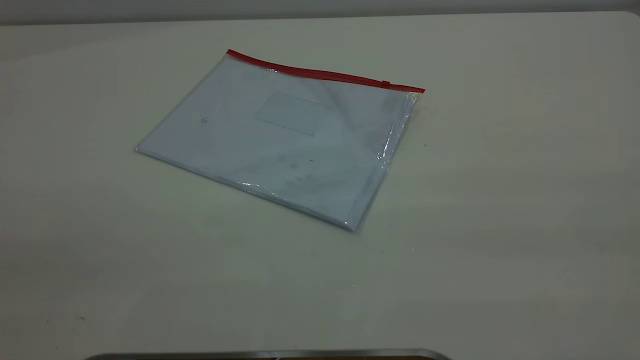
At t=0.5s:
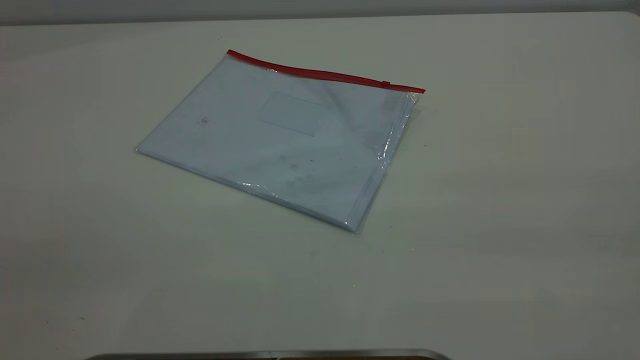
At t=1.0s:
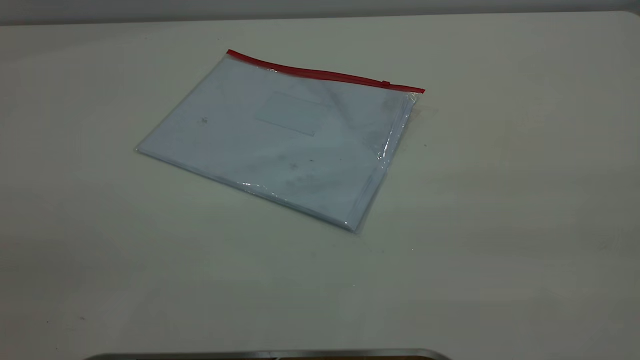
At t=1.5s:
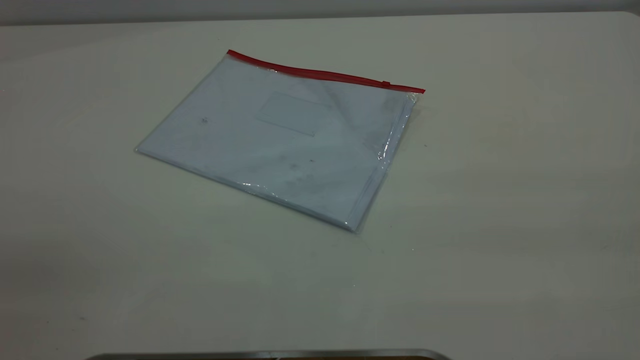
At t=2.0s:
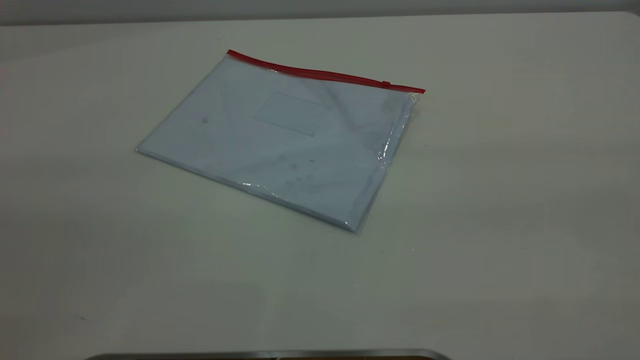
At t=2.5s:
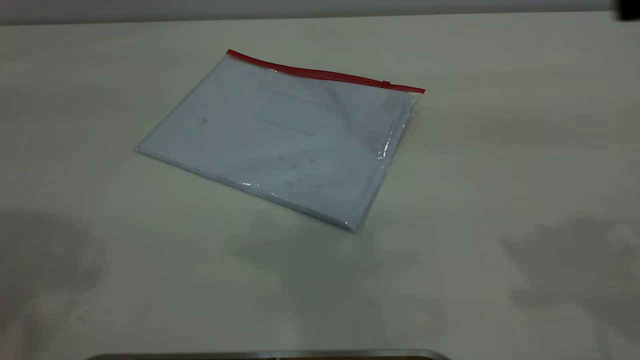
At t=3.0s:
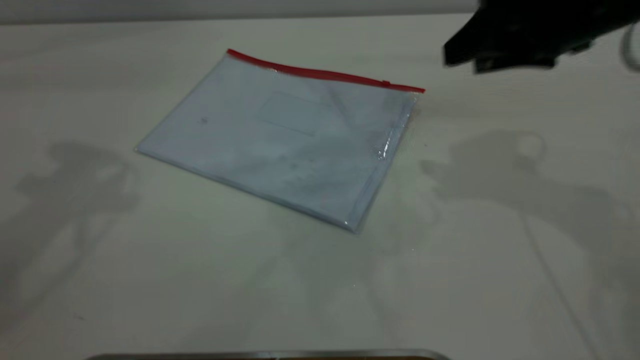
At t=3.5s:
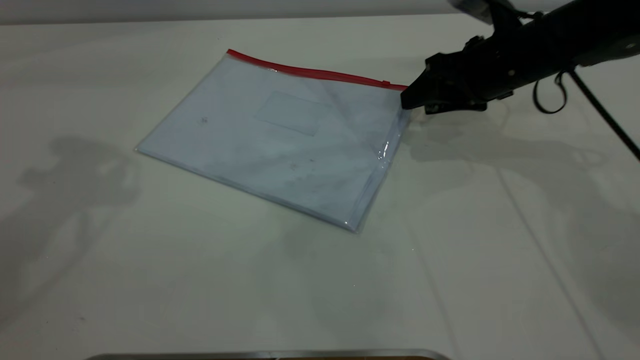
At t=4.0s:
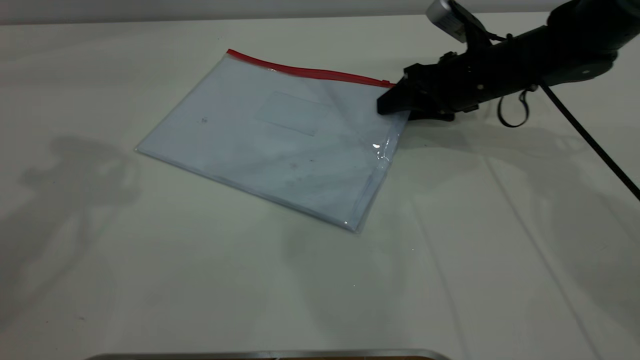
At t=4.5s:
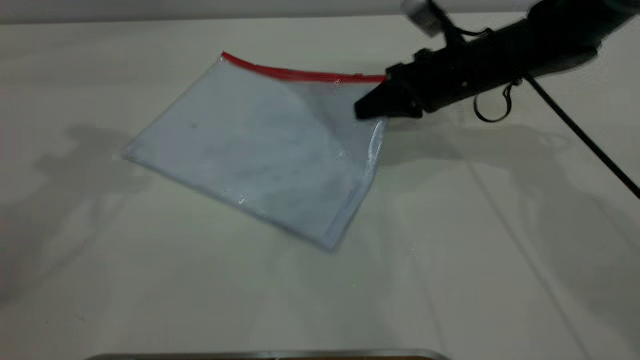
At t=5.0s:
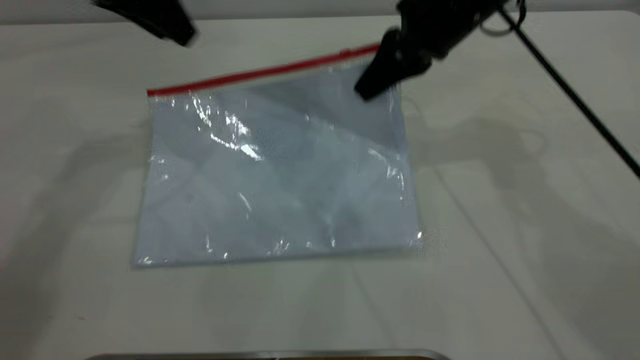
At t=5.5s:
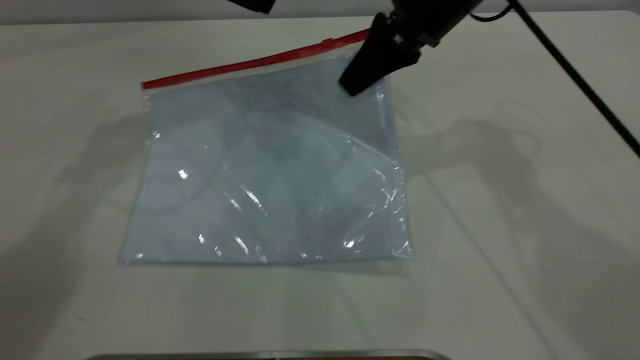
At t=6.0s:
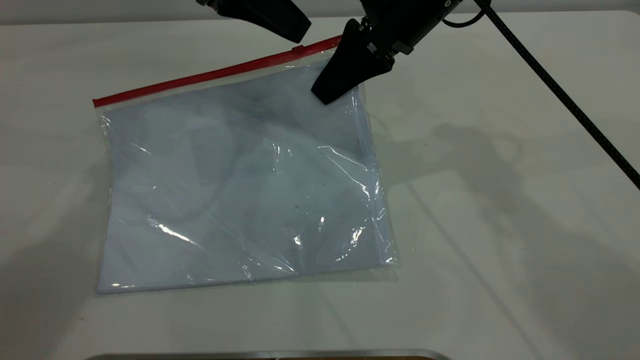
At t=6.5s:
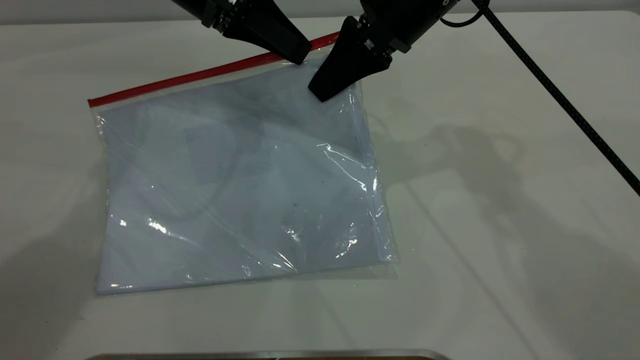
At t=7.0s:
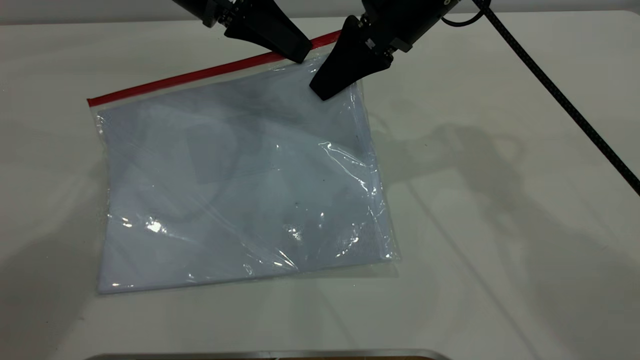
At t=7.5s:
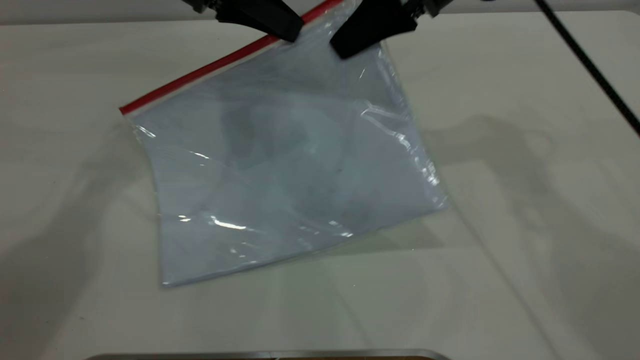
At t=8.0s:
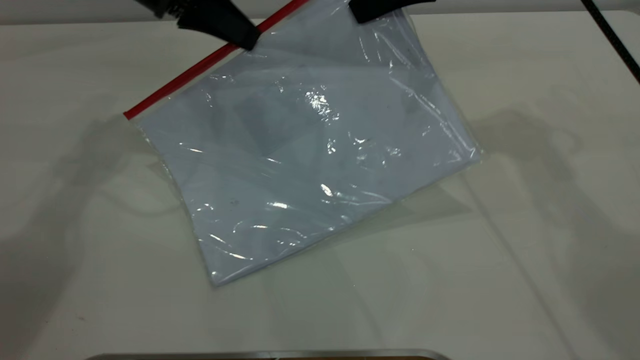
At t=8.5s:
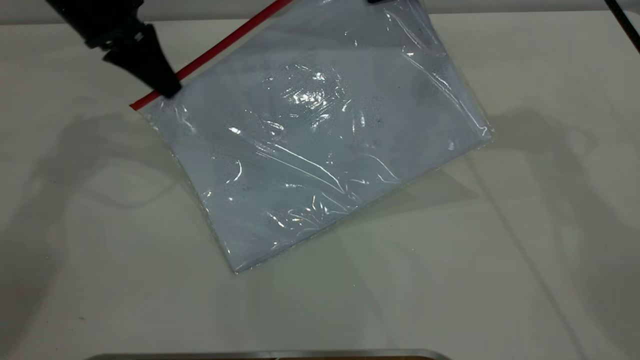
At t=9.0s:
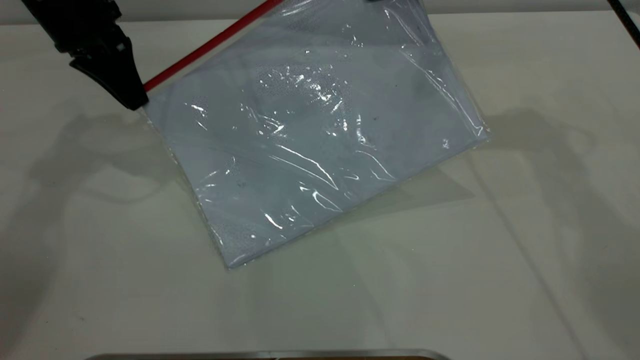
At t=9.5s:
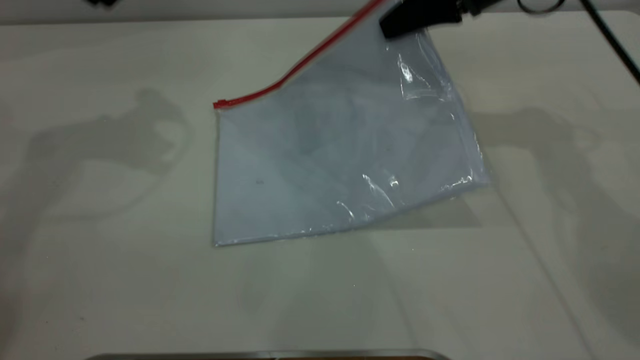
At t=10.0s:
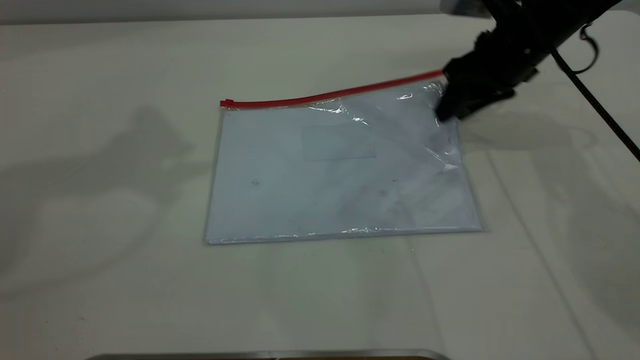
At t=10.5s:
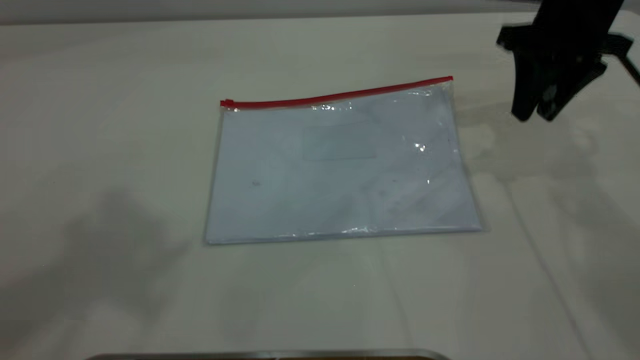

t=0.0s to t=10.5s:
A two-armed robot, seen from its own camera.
Step, t=0.0s to t=4.5s: Pick up the transparent plastic bag with the right gripper.
Step, t=5.0s to t=9.0s: Pulling up the zipper on the transparent plastic bag with the left gripper to close it.
t=2.0s to t=4.0s: The left gripper shifts some 30 cm forward. Meanwhile the right gripper travels forward and downward by roughly 50 cm.
t=4.0s to t=6.5s: The right gripper heads upward and to the left, covering about 15 cm, and closes up; the left gripper travels to the right, downward and forward by approximately 25 cm.
t=6.5s to t=8.5s: The right gripper moves to the right, some 10 cm; the left gripper goes some 10 cm to the left, and closes up.
t=8.5s to t=10.5s: The right gripper goes roughly 5 cm to the right, reaches some 10 cm downward, then returns, and opens up. The left gripper is displaced upward and backward by some 40 cm, and opens.

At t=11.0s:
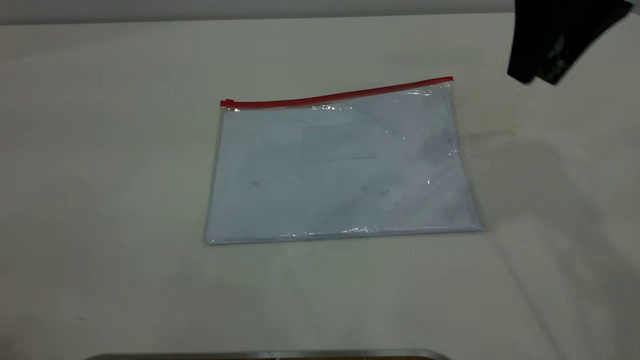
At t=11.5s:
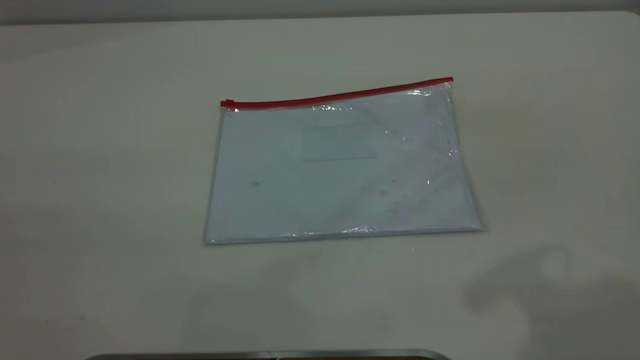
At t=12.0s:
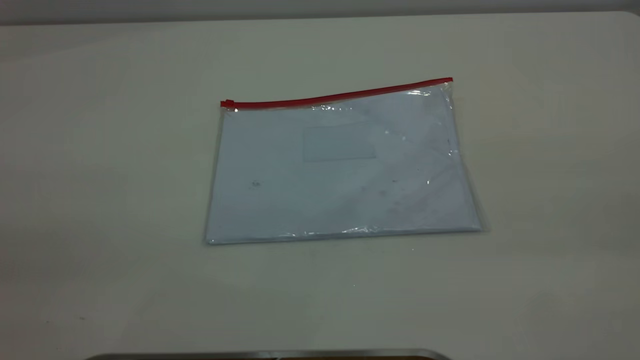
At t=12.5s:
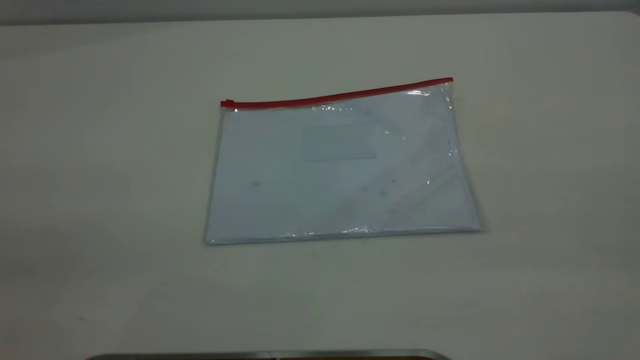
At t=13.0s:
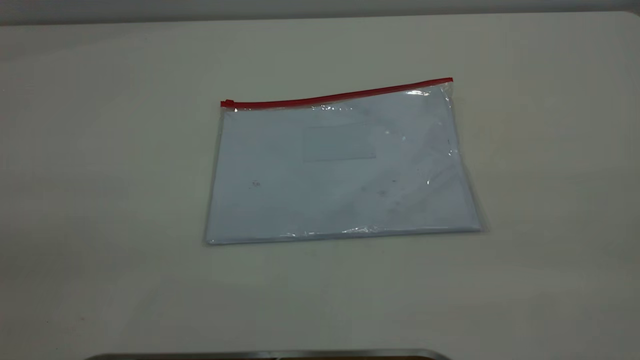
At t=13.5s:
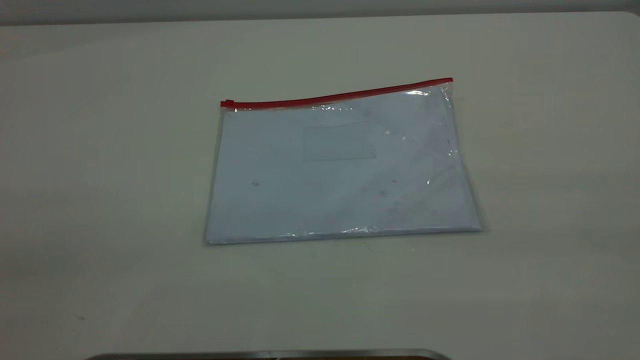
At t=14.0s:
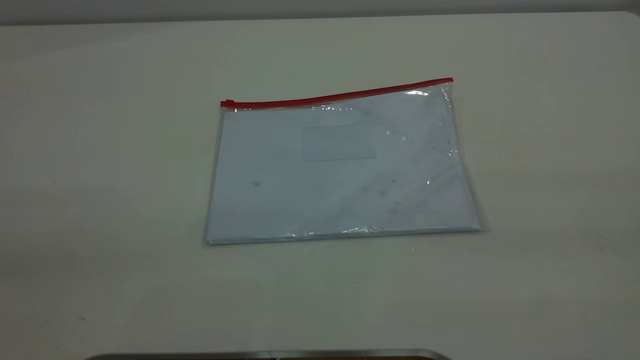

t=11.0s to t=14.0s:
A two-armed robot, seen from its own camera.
t=11.0s to t=12.5s: The right gripper is displaced backward by approximately 35 cm.

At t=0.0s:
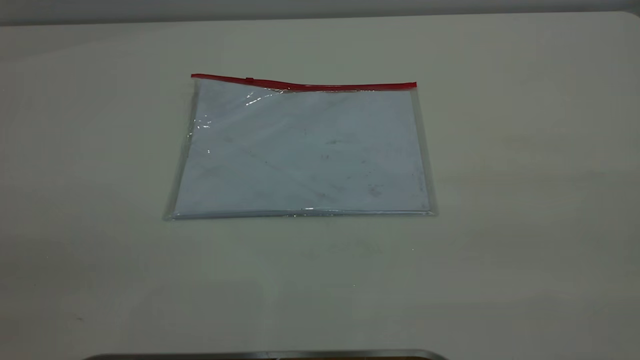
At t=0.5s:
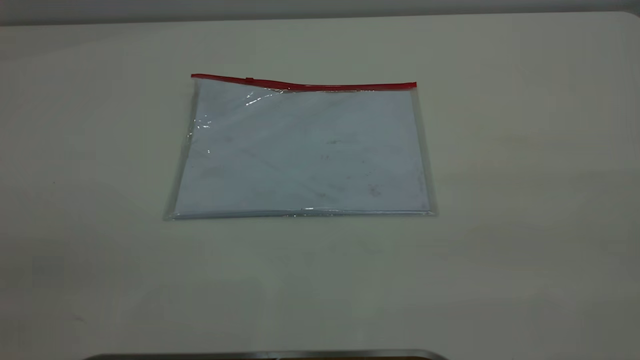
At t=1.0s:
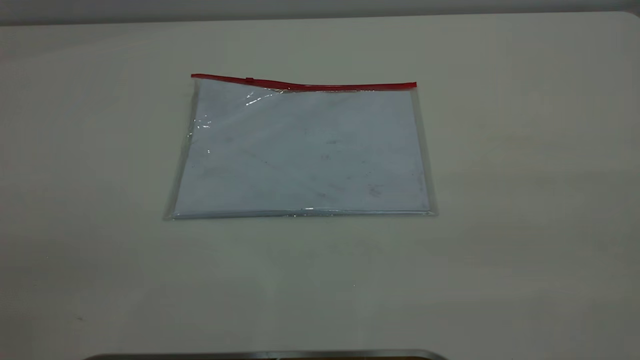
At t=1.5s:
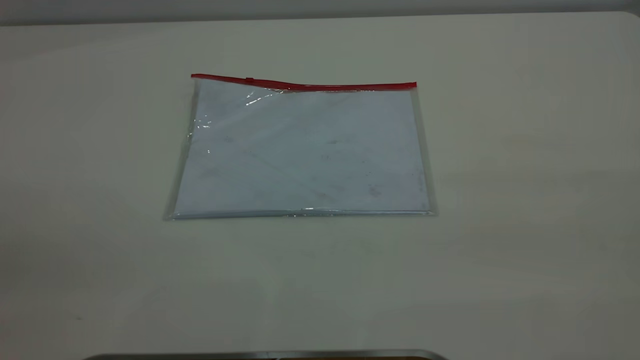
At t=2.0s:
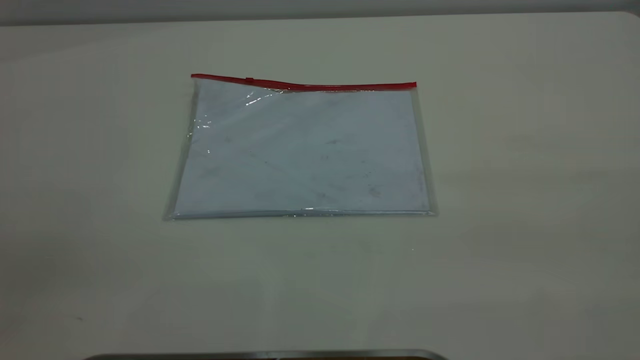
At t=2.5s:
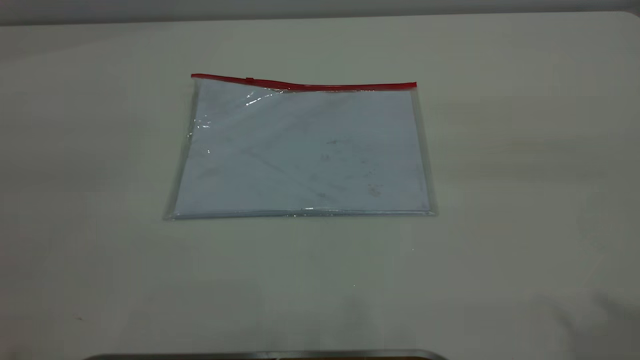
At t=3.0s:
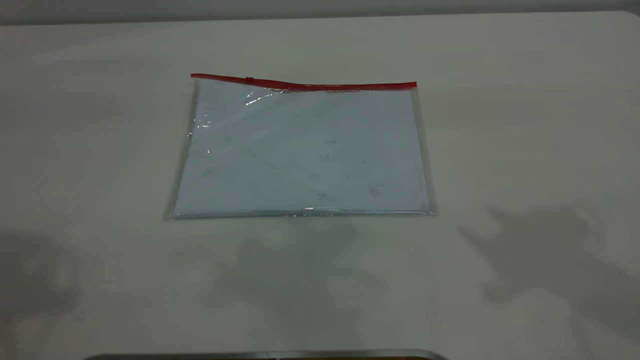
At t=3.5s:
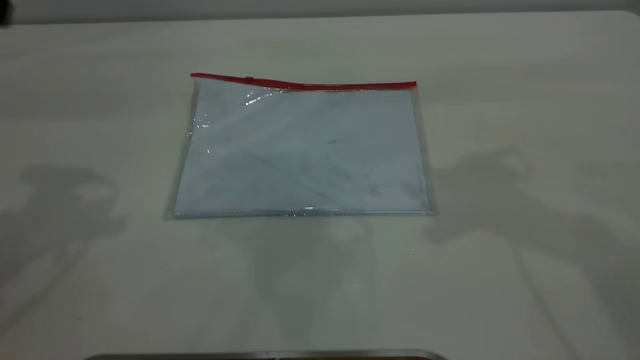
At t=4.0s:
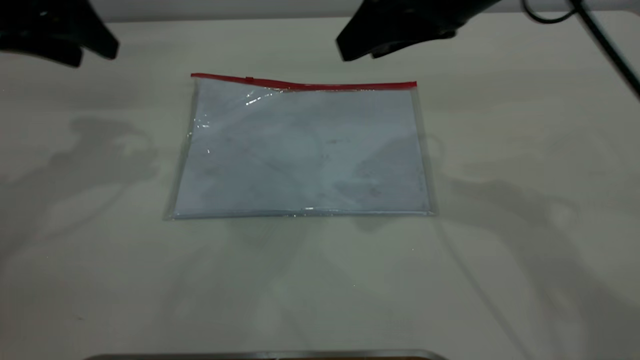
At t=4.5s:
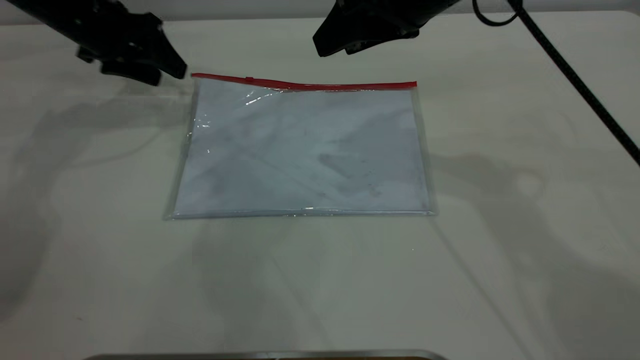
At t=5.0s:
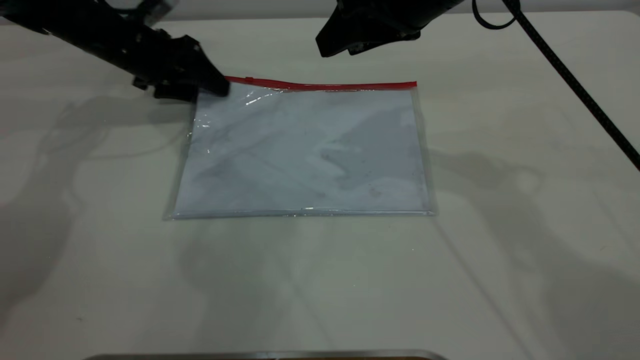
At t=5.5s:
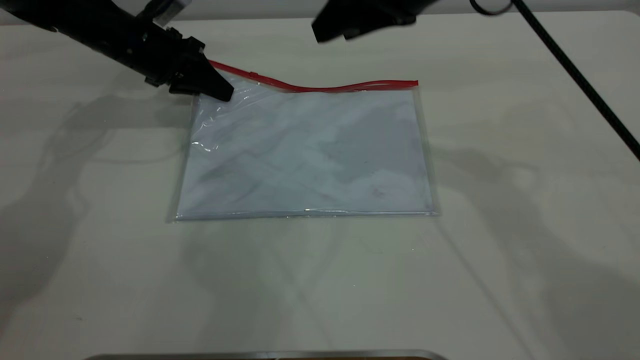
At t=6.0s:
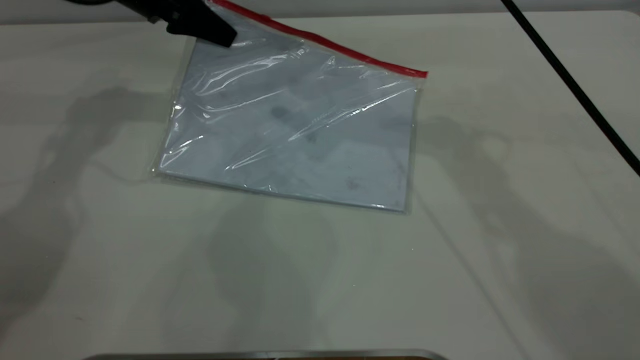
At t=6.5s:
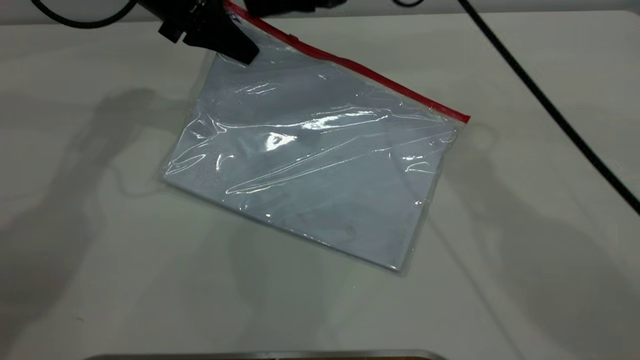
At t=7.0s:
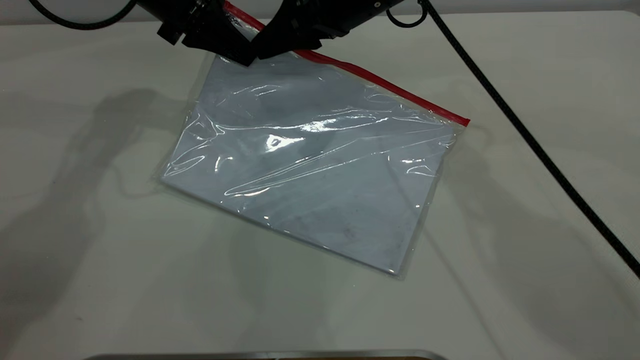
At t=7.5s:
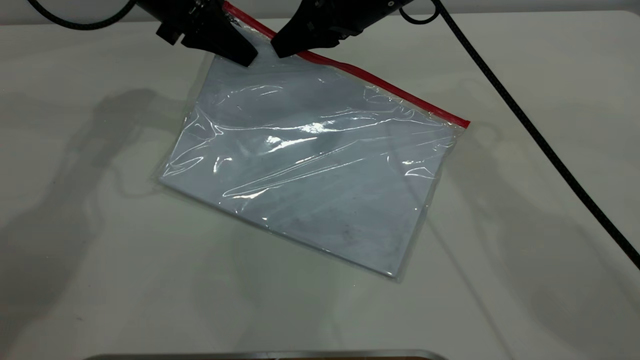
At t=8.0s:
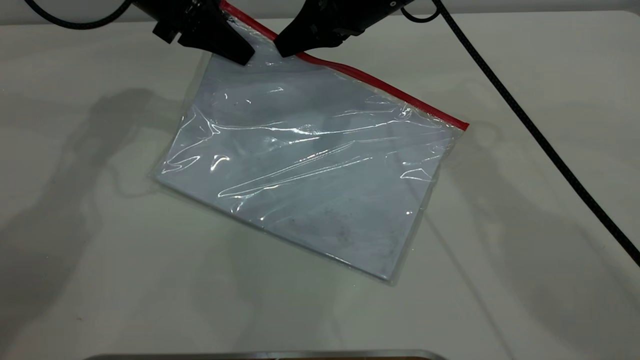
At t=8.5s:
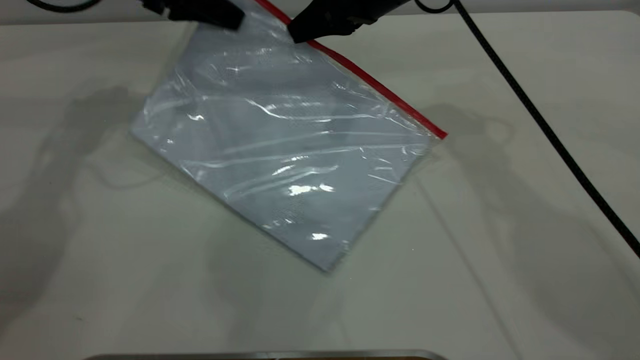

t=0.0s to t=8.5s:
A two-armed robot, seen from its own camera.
Step, t=0.0s to t=5.5s: Pick up the transparent plastic bag with the left gripper.
t=0.0s to t=2.0s: The two grippers keep their place.
t=2.0s to t=4.0s: The left gripper moves forward, about 40 cm, and opens its fingers. The right gripper is displaced forward and to the left by approximately 40 cm.
t=4.0s to t=6.5s: The left gripper goes approximately 15 cm to the right, forward and downward, and closes up. The right gripper heads forward and to the left, covering some 15 cm.
t=6.5s to t=8.5s: The right gripper closes up.
